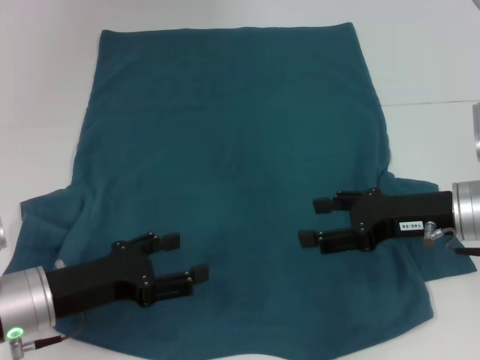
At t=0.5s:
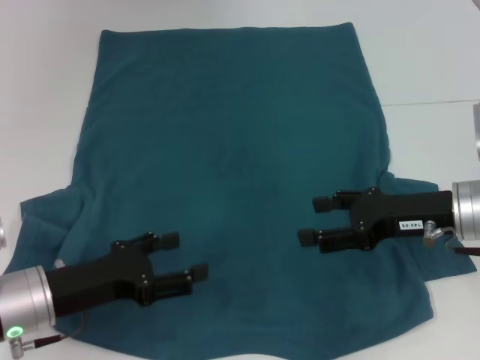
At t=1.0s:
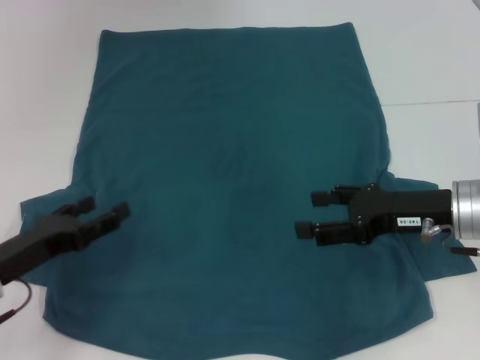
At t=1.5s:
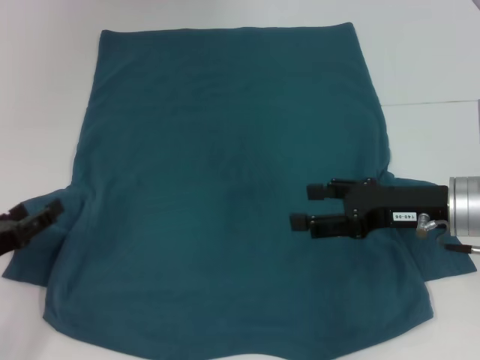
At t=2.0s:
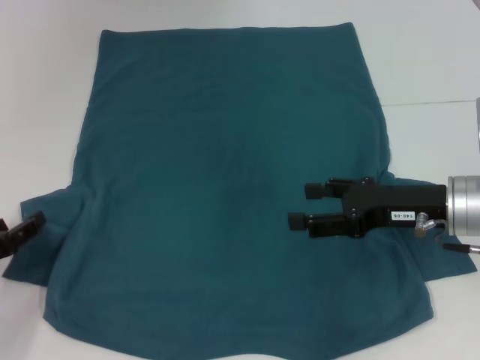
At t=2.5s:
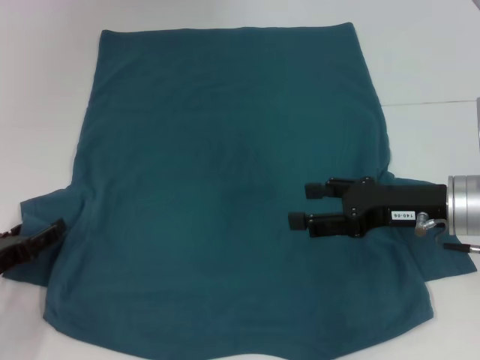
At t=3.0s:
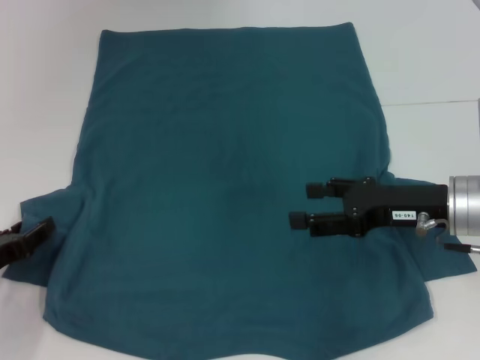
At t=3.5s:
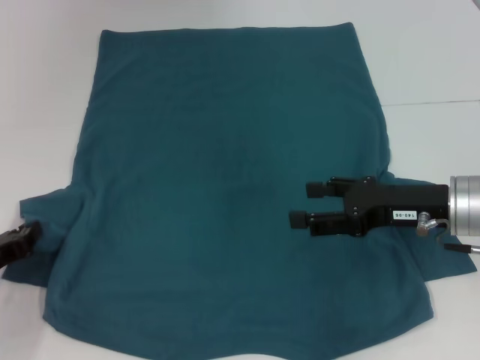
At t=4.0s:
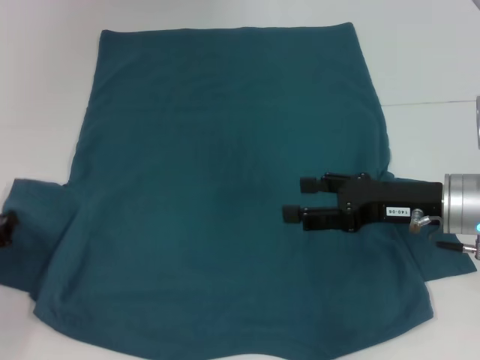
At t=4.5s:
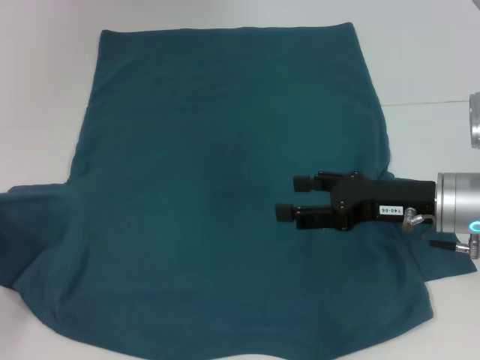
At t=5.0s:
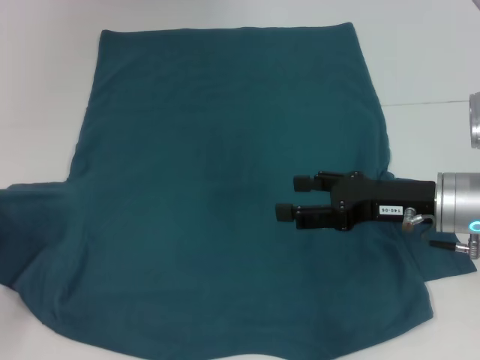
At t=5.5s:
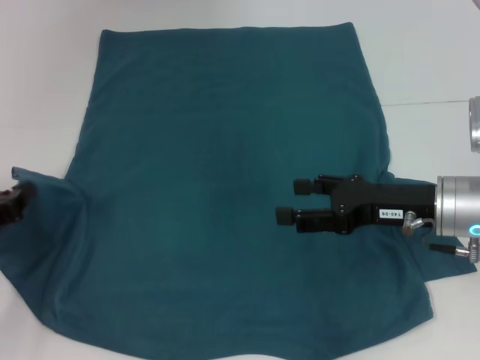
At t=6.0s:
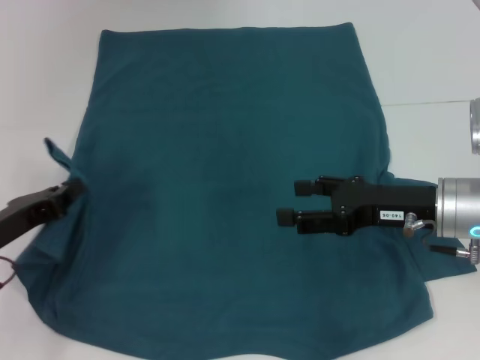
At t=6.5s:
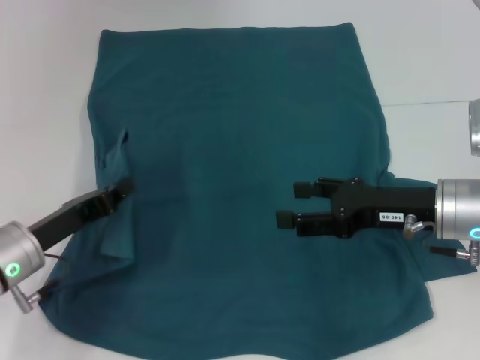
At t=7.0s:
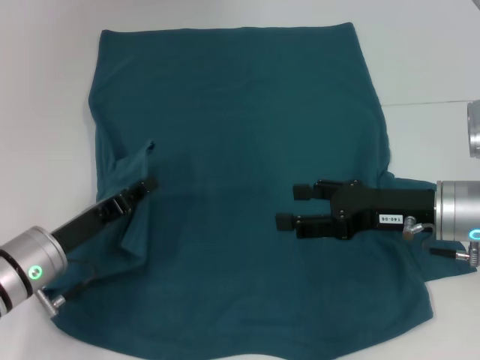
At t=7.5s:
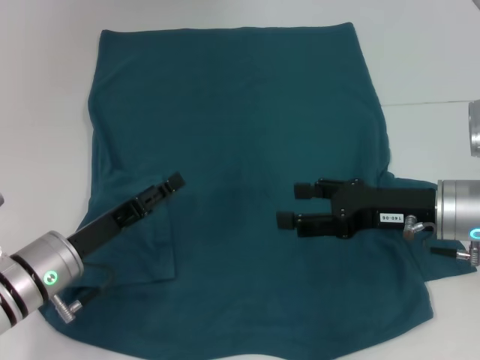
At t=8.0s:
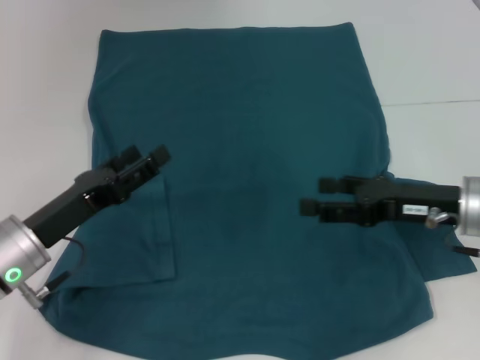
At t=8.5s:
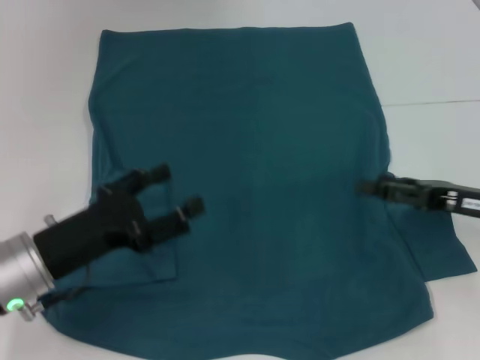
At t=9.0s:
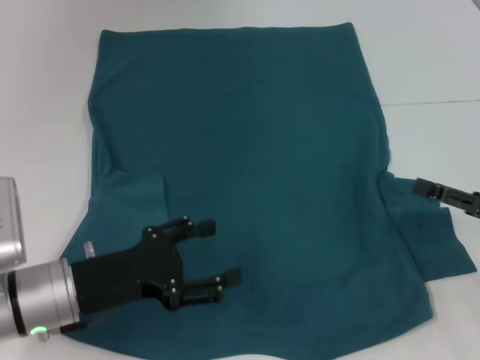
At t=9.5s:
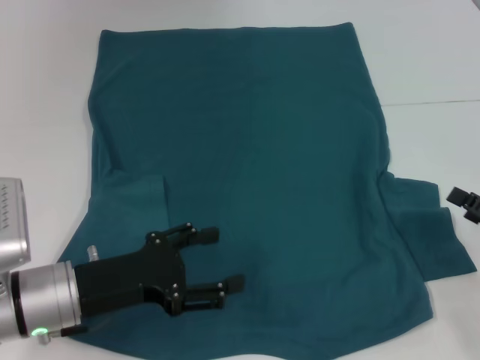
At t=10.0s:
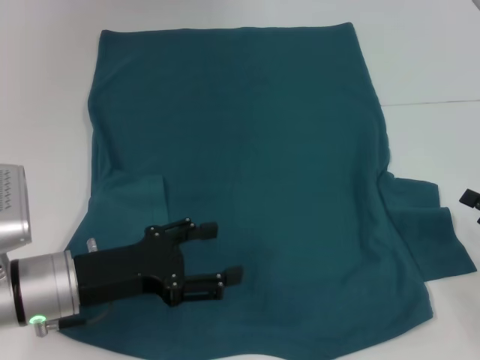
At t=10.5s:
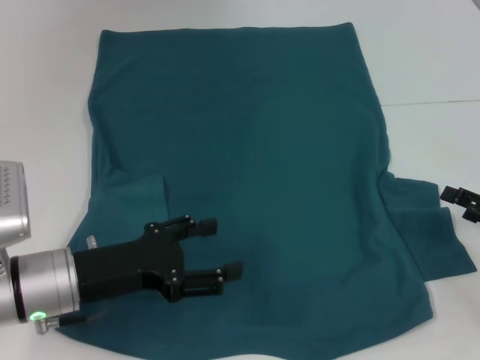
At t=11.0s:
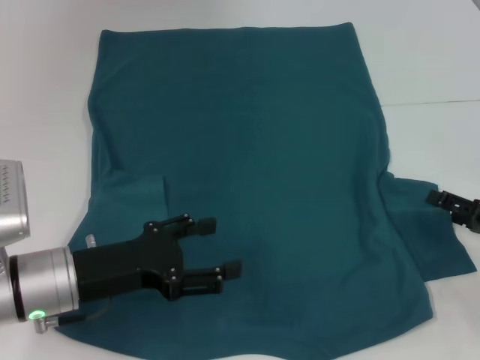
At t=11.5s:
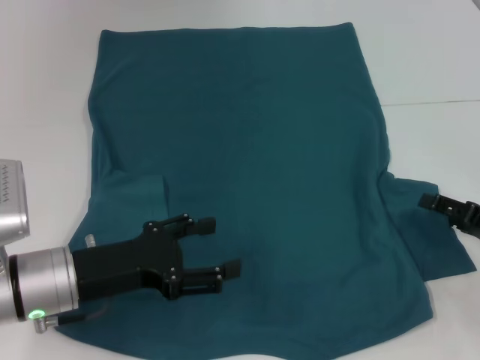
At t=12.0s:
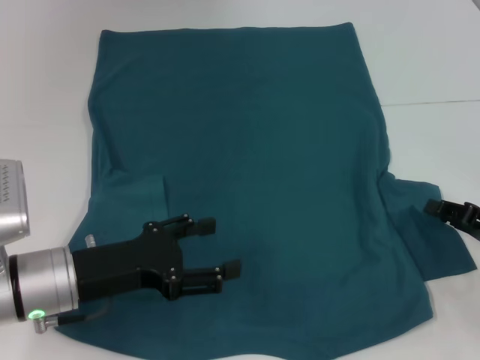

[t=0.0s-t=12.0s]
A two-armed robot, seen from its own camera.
Step, t=0.0s to t=7.0s: Fold the bottom left sleeve with your left hand.
t=0.0s to t=2.0s: The left gripper is displaced to the left by approximately 10 cm.
t=2.0s to t=4.0s: The left gripper closes up.
t=4.0s to t=6.0s: The left gripper ends up approximately 5 cm from where it was.
t=6.0s to t=8.0s: The left gripper goes some 5 cm to the right, and opens its fingers.
t=8.0s to t=10.0s: The right gripper goes about 15 cm to the right, backward and downward.
t=10.0s to t=12.0s: The right gripper closes.

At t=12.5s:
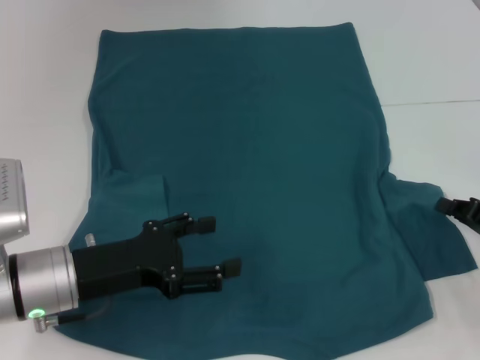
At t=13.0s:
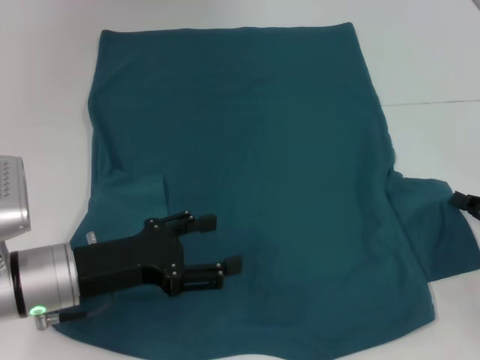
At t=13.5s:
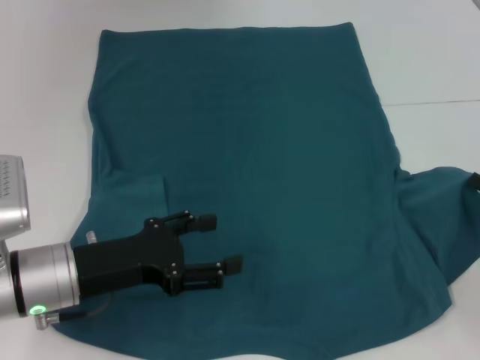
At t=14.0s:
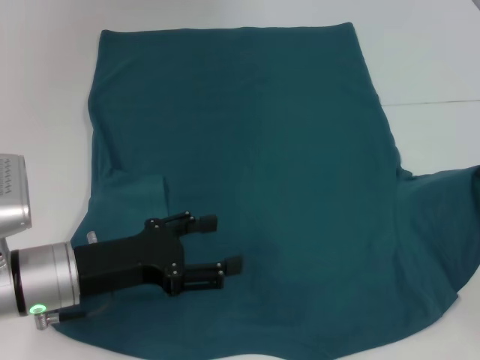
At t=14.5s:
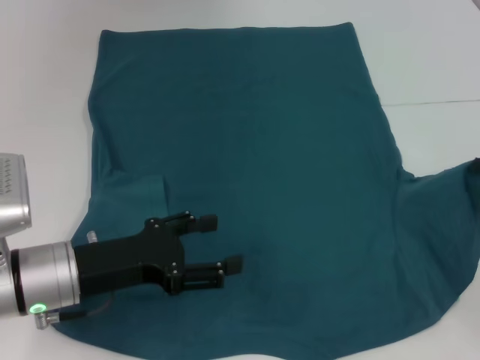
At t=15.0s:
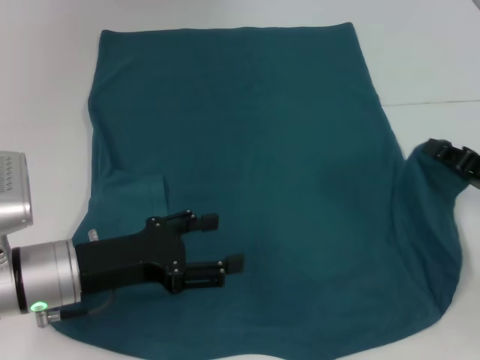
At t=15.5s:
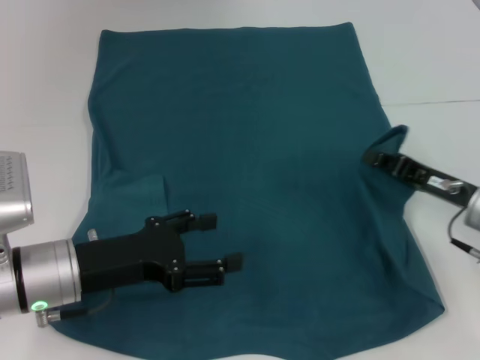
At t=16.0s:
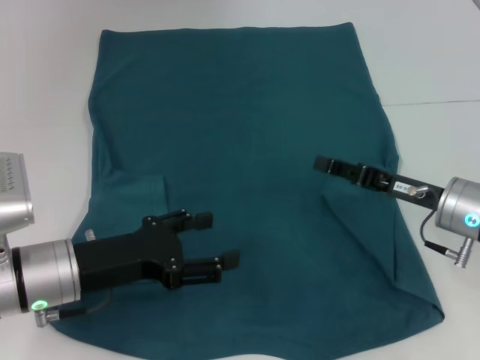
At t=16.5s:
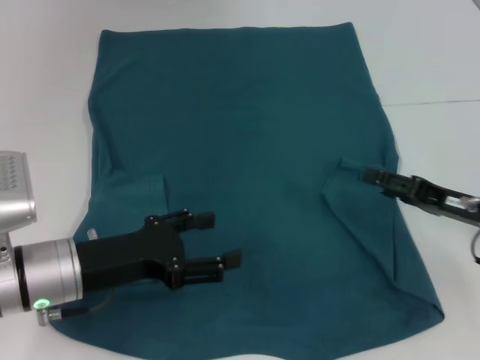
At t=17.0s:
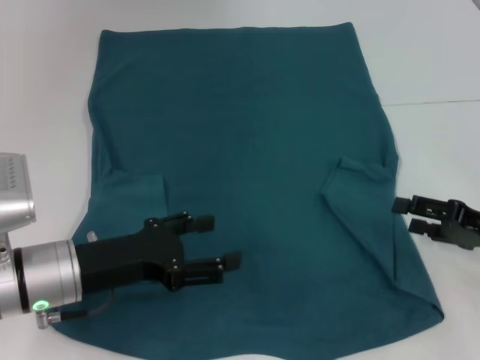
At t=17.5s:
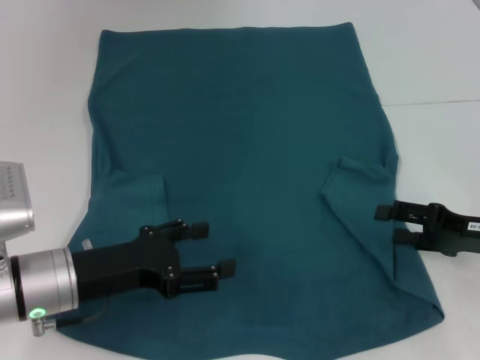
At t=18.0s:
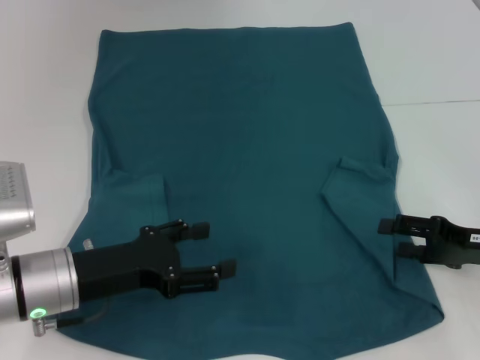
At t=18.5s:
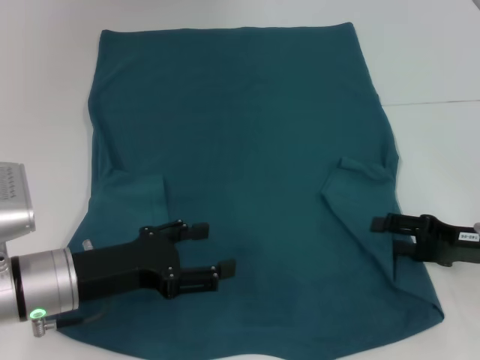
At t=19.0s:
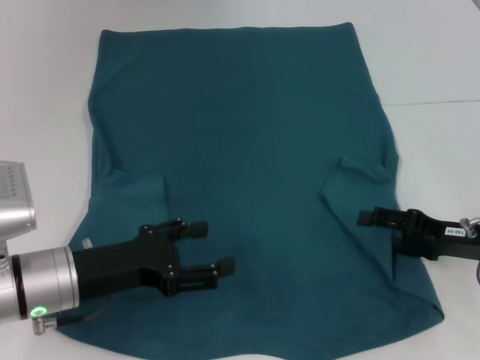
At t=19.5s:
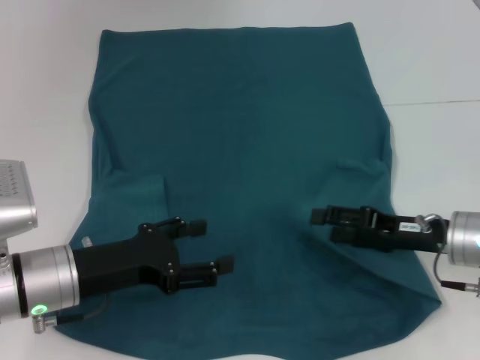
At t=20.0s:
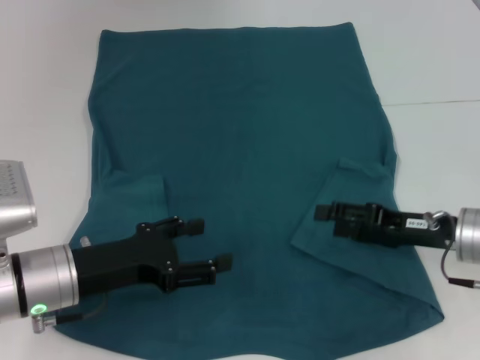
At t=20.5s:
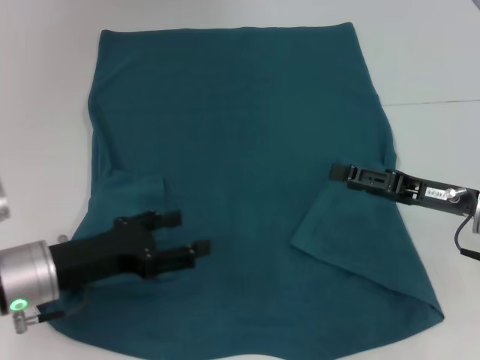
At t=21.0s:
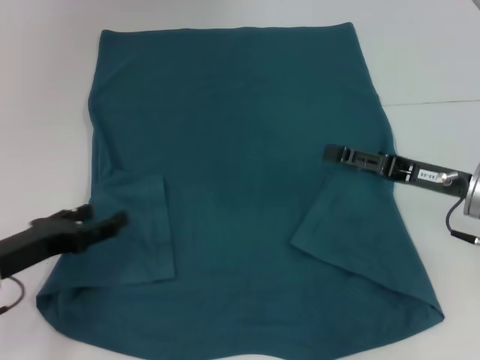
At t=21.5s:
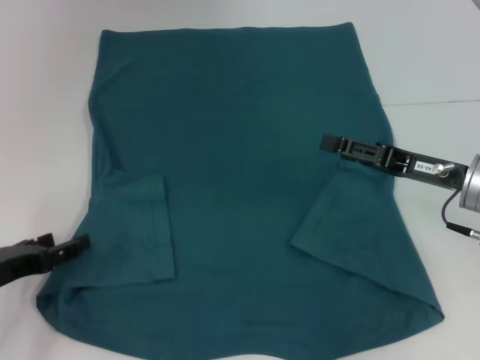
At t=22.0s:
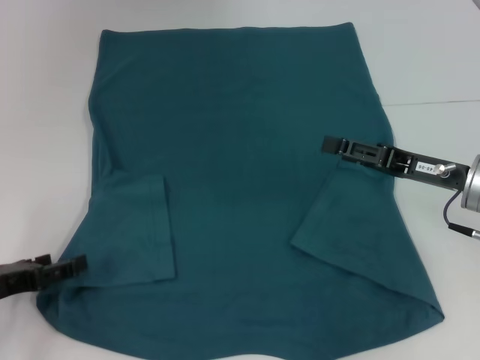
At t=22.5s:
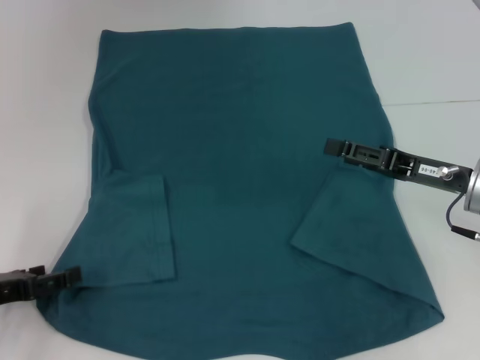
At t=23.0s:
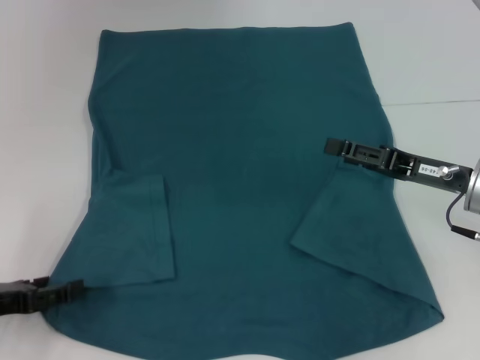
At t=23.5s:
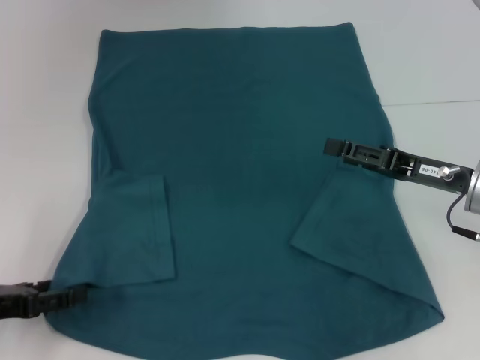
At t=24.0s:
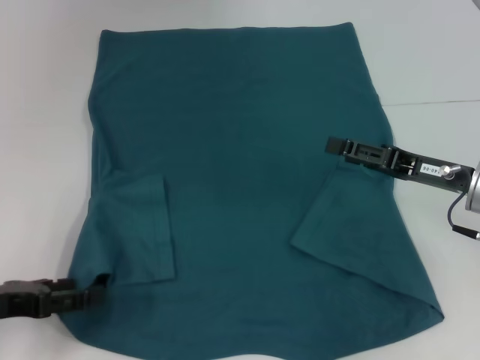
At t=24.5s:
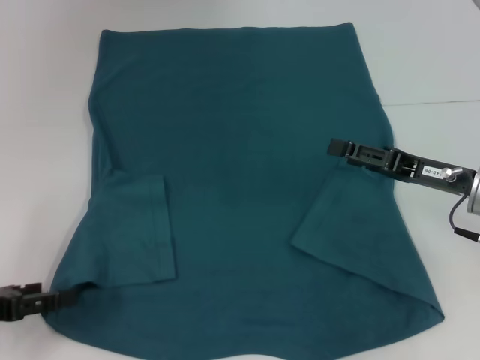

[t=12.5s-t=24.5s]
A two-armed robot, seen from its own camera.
Step, t=12.5s to t=19.5s: Fold the bottom right sleeve to the right.
t=12.5s to t=14.5s: There are only small adjustments of the grippers.
t=14.5s to t=16.5s: The right gripper is displaced to the left by roughly 5 cm, and opens.
t=18.5s to t=20.5s: The right gripper ends up some 5 cm from where it was.
t=20.5s to t=22.5s: The left gripper shifts about 10 cm to the left.
t=22.5s to t=24.5s: The grippers stay close to where they were, moving slightly.

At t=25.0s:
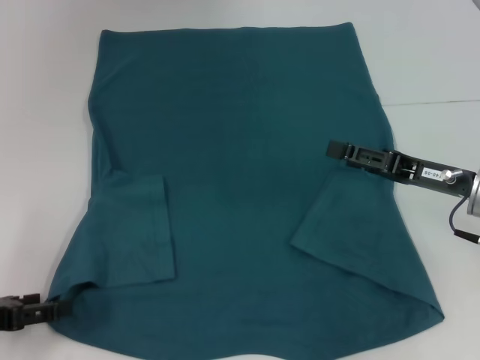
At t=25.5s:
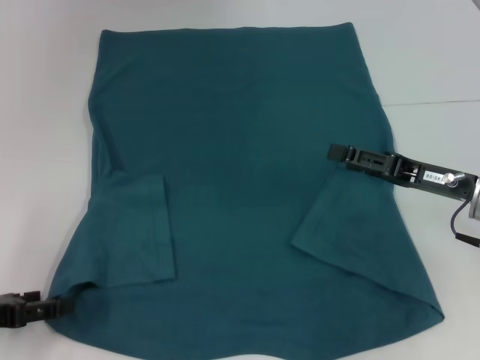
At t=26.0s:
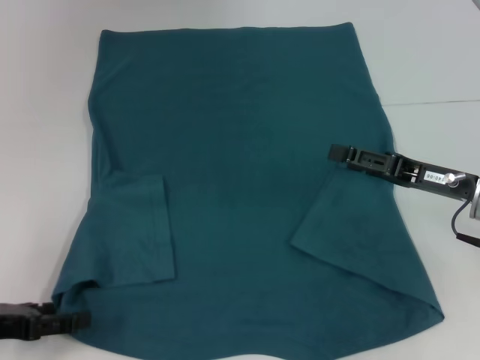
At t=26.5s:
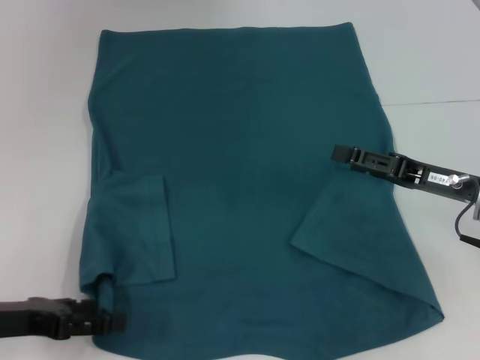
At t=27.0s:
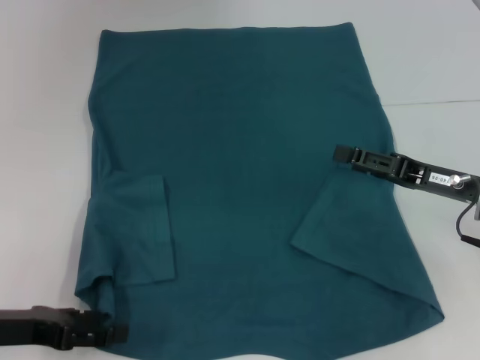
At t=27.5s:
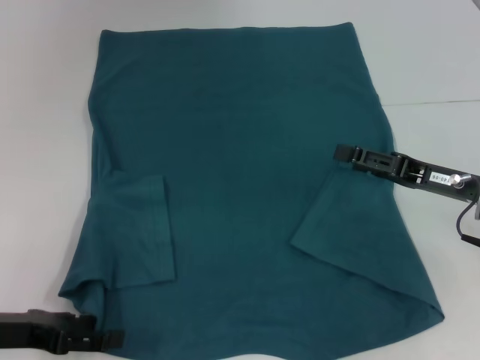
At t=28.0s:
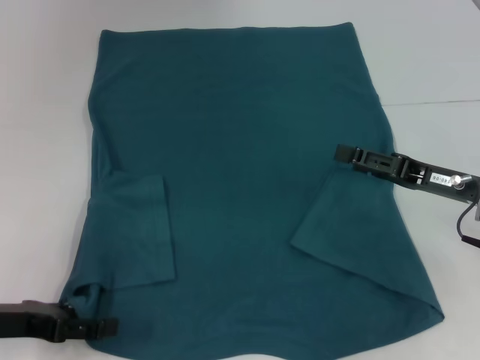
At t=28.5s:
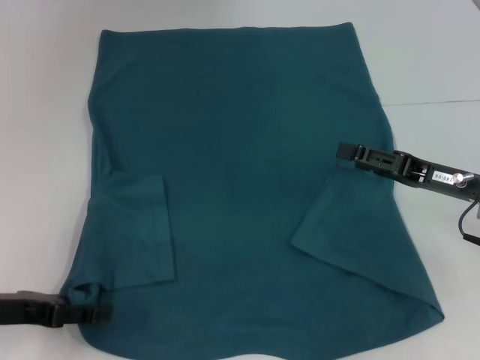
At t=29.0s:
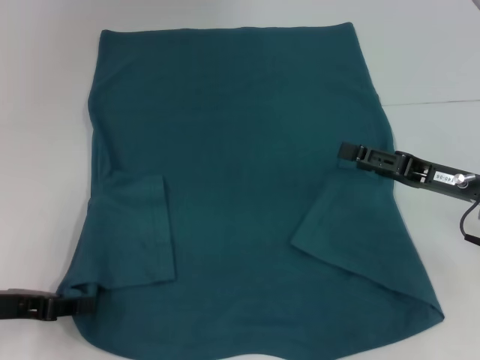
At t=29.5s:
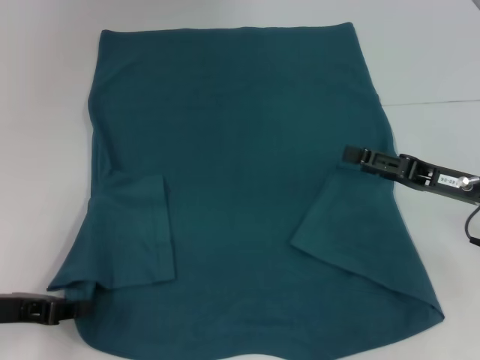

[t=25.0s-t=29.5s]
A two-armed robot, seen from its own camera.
t=25.0s to t=27.0s: The grippers stay close to where they were, moving slightly.
t=27.0s to t=29.5s: The left gripper closes its fingers.
